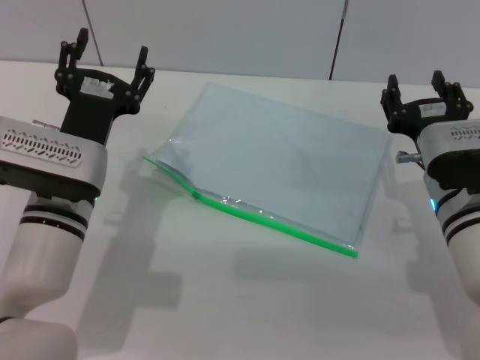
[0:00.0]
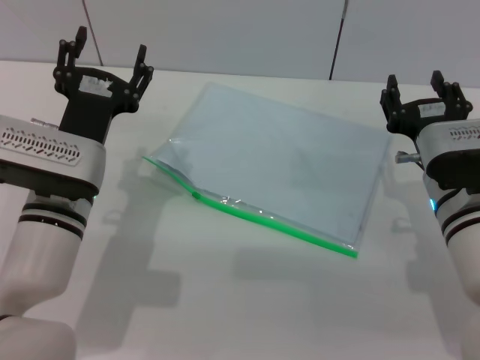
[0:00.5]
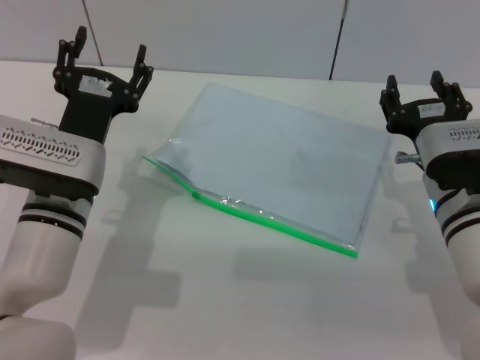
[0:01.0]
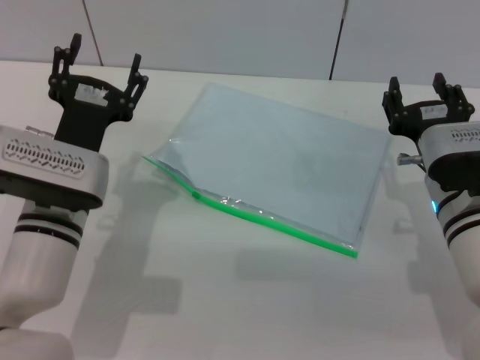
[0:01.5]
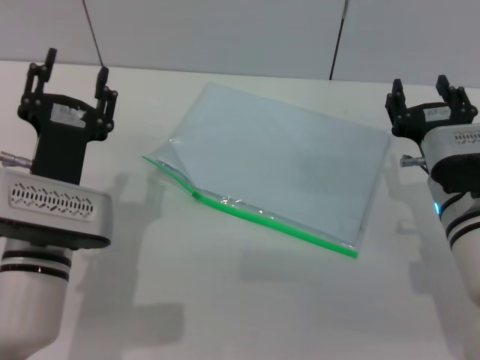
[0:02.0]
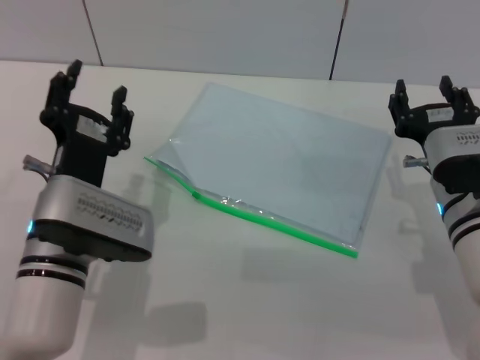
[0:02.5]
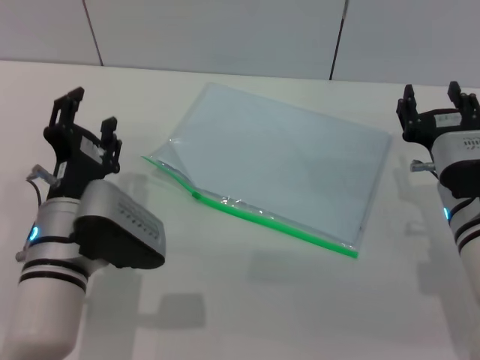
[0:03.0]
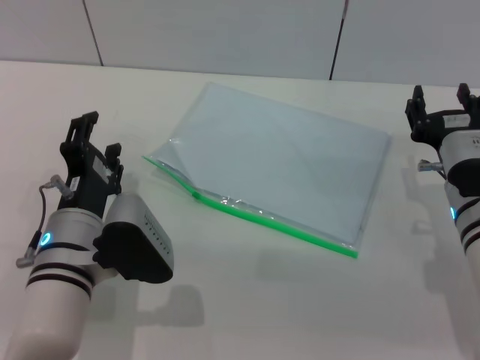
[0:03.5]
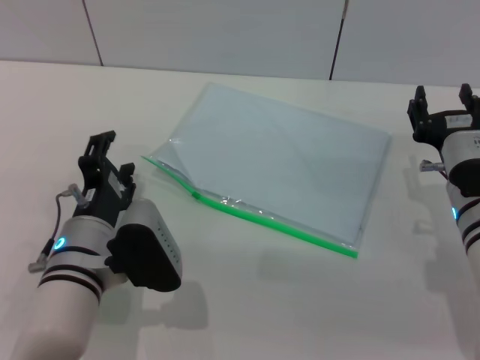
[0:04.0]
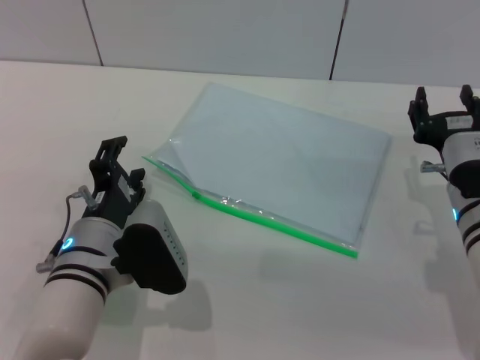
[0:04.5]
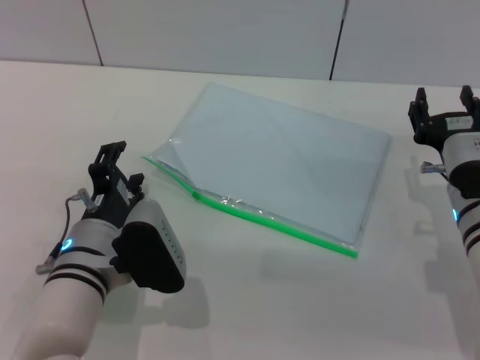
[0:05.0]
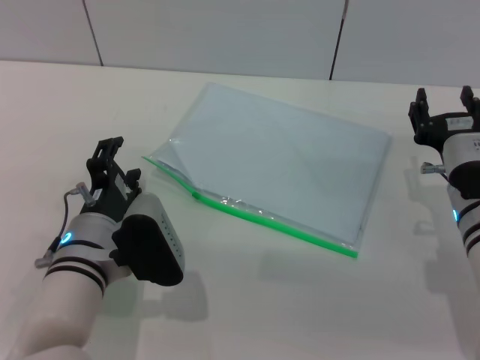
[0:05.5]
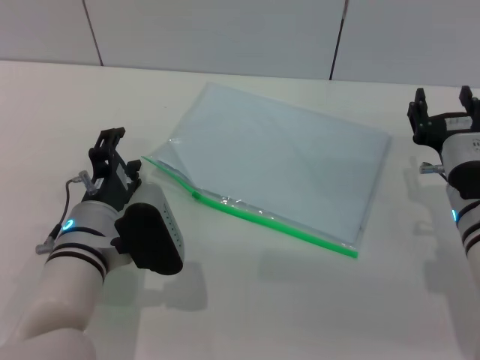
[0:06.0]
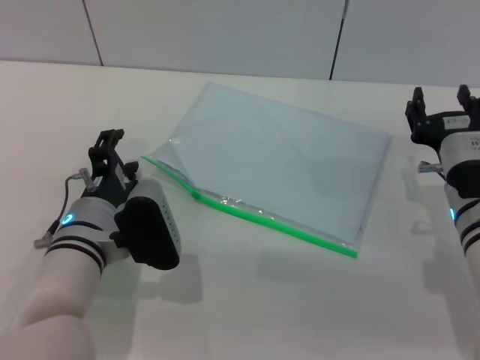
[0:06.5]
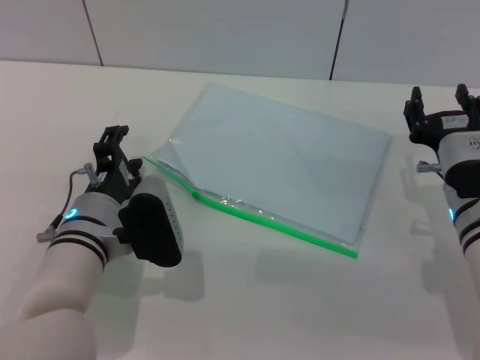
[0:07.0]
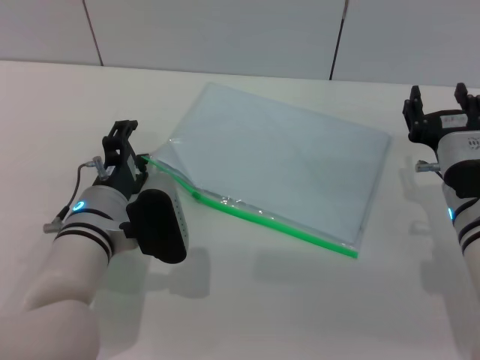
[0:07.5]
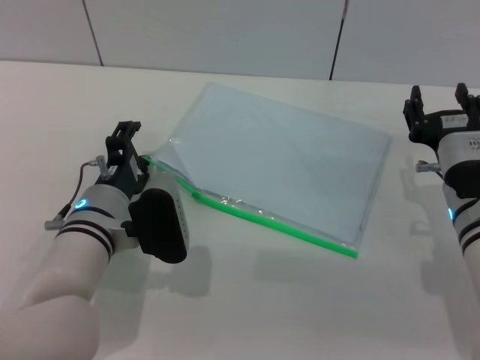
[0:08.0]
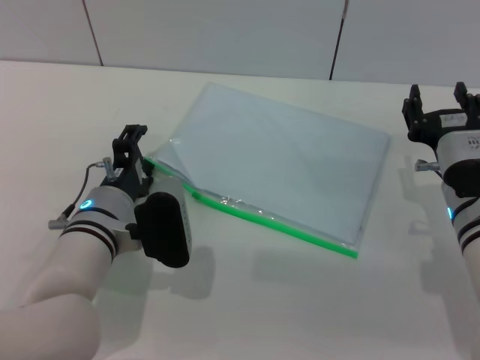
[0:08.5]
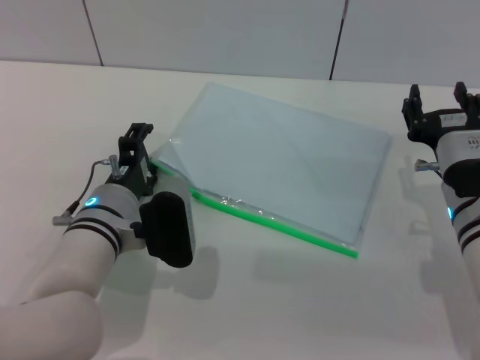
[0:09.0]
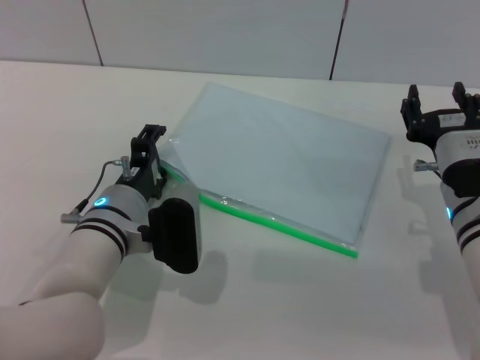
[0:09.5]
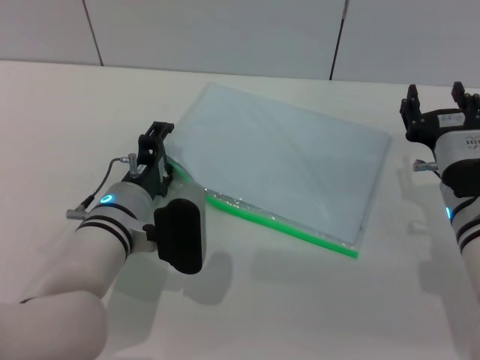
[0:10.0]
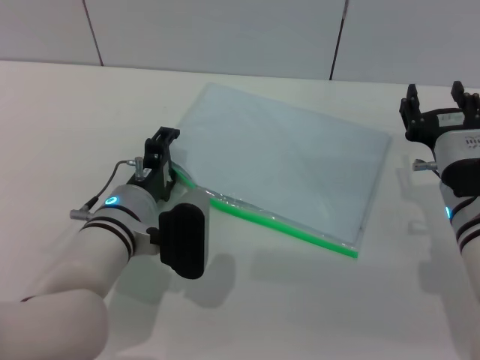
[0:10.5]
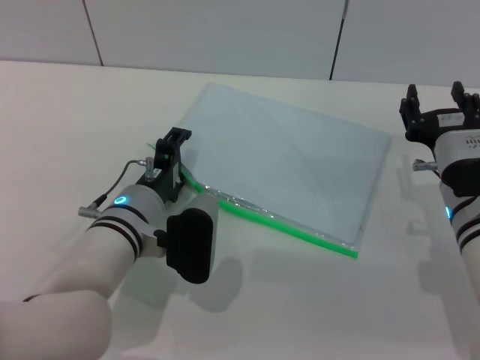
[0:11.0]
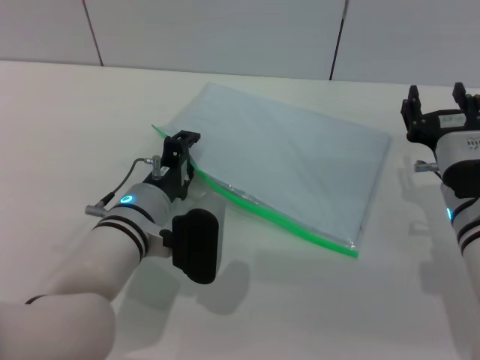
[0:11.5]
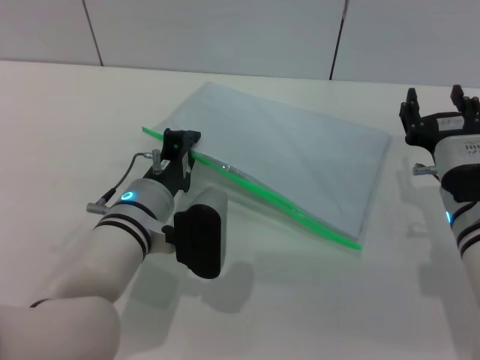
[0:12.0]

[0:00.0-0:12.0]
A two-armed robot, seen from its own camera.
0:00.0 to 0:02.0: The grippers make only small movements.
0:04.0 to 0:08.0: The grippers move only a little.
0:08.0 to 0:10.0: The grippers move only a little.
0:10.0 to 0:12.0: The left gripper closes its fingers.

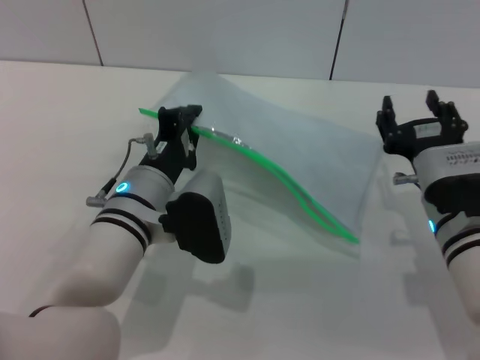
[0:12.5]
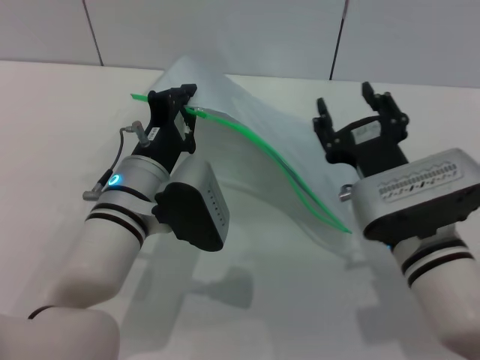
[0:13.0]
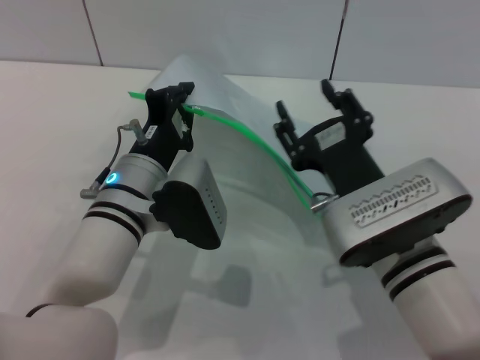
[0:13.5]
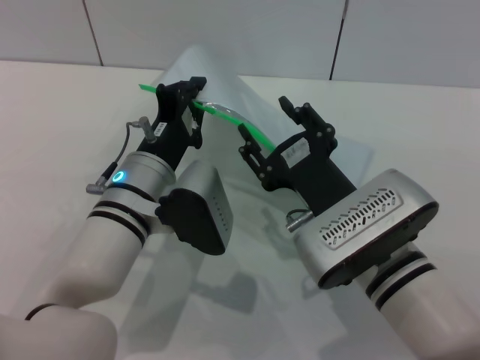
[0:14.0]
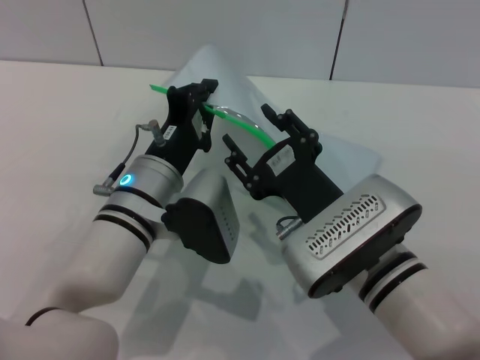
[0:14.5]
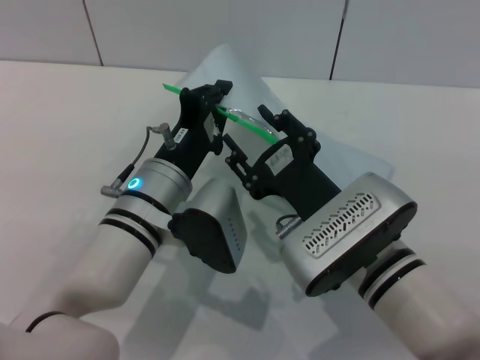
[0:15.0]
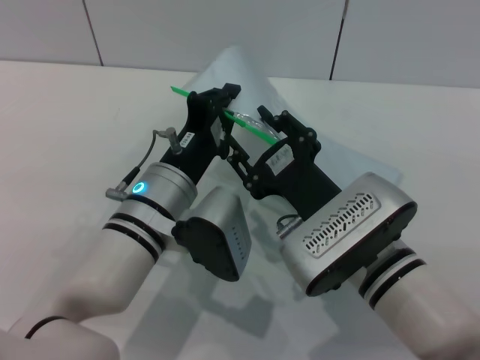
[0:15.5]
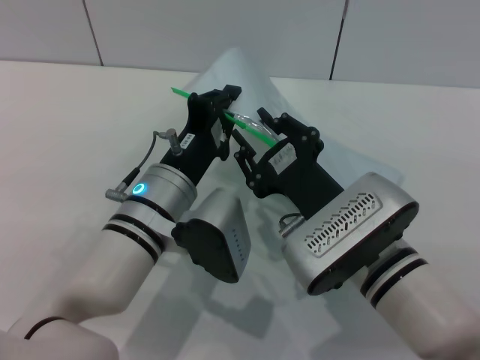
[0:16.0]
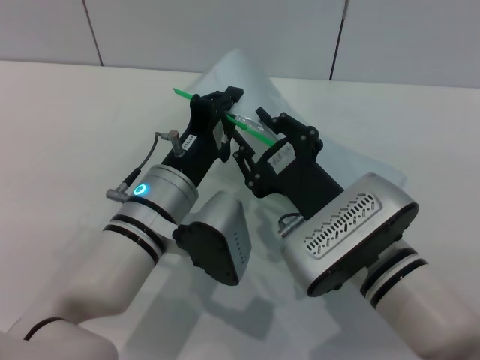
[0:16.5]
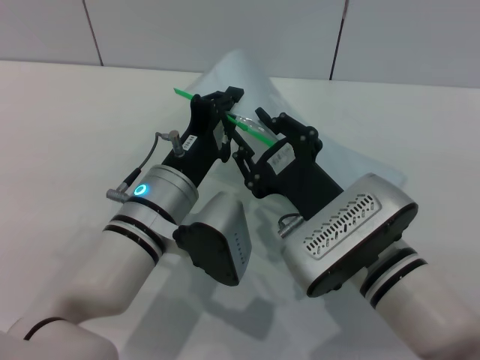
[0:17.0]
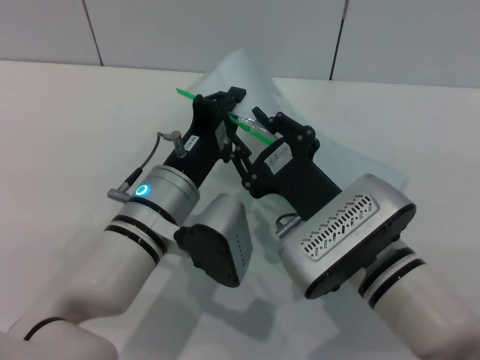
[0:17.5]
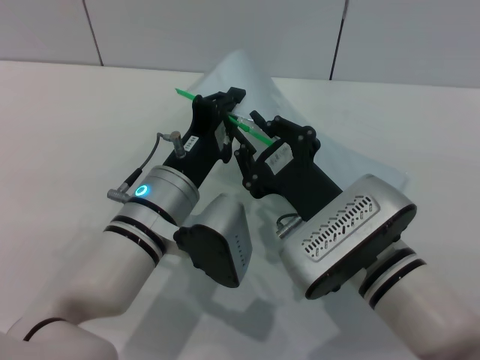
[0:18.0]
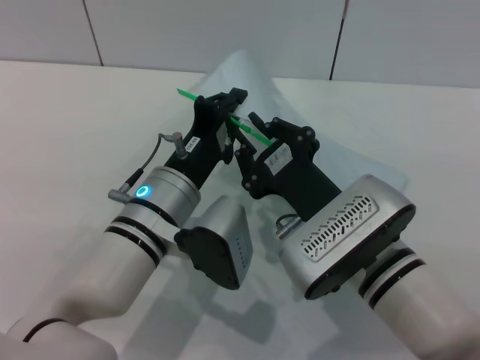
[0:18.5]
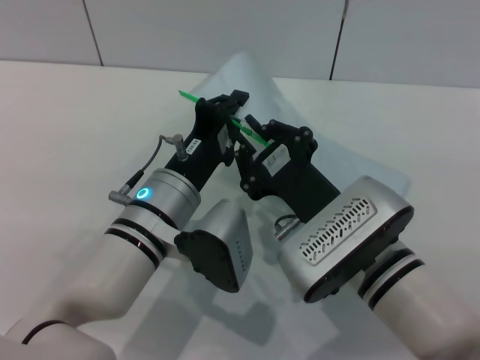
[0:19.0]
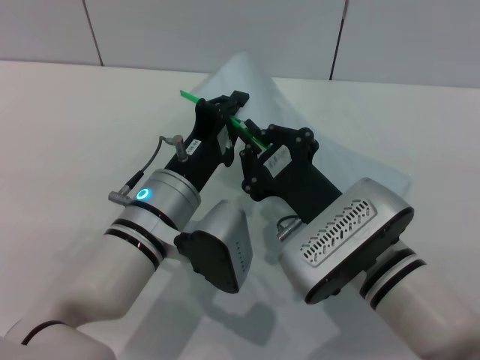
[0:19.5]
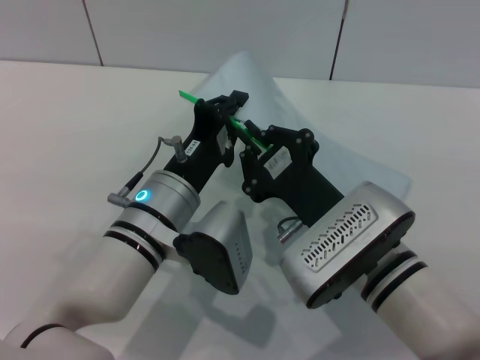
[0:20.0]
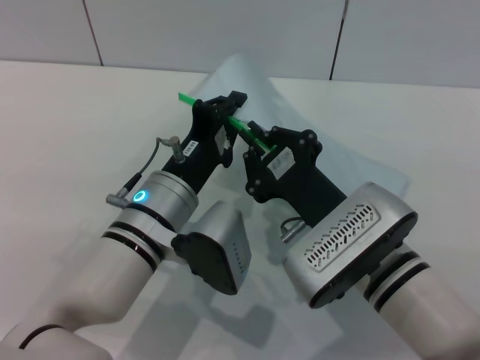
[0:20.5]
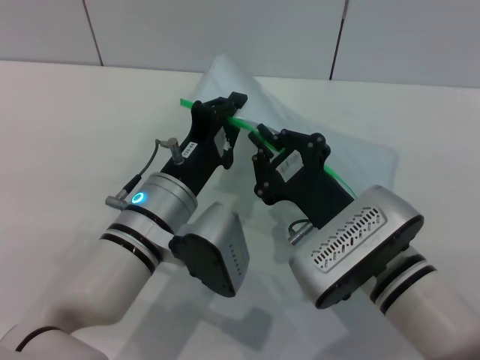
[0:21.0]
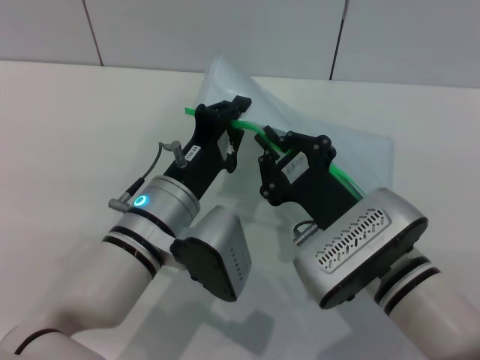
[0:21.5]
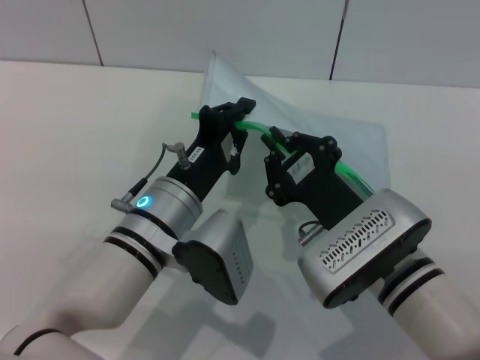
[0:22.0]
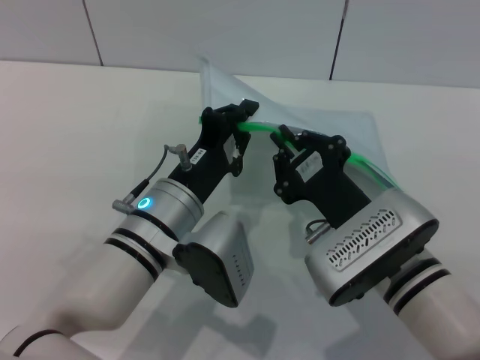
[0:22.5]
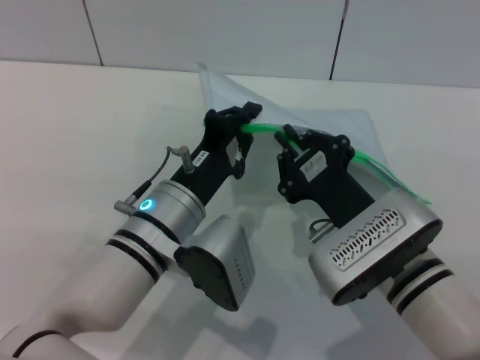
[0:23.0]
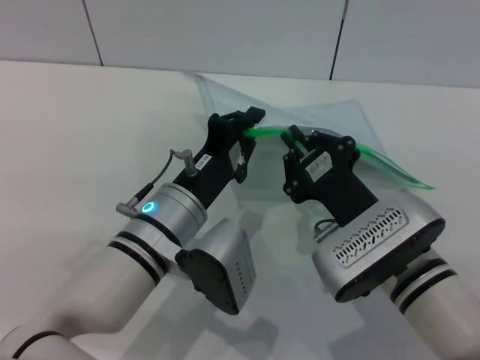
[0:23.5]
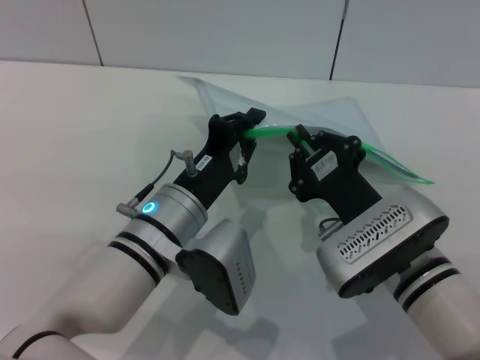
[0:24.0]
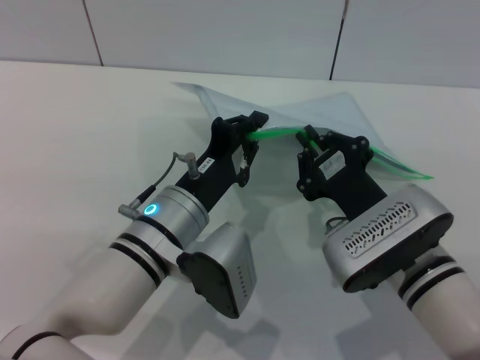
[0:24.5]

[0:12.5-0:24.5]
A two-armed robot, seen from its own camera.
0:12.5 to 0:14.5: The right gripper shifts about 10 cm to the left.
0:14.5 to 0:16.5: The right gripper closes up.
0:16.5 to 0:20.5: Neither gripper changes place.
0:20.5 to 0:24.5: There are only small adjustments of the grippers.

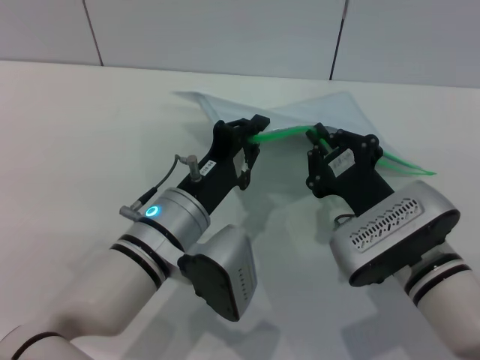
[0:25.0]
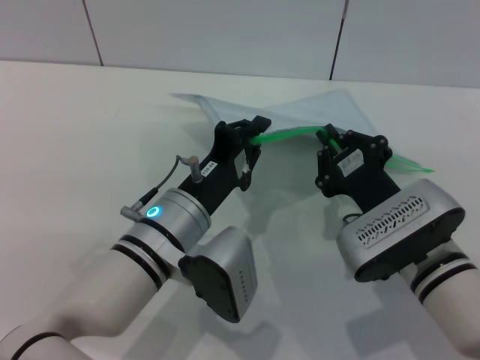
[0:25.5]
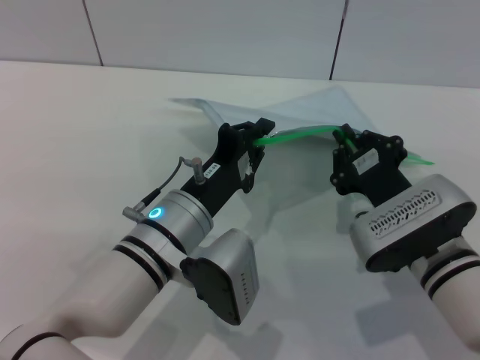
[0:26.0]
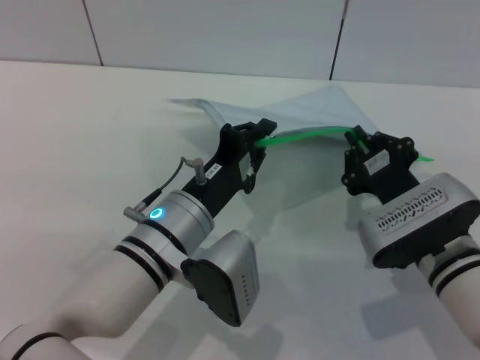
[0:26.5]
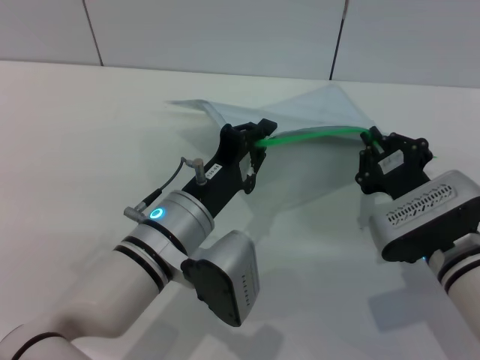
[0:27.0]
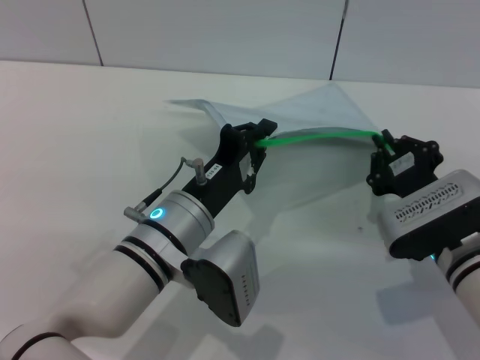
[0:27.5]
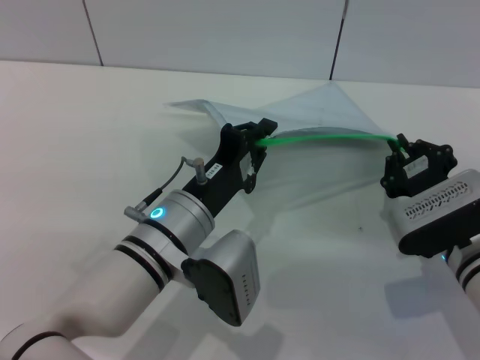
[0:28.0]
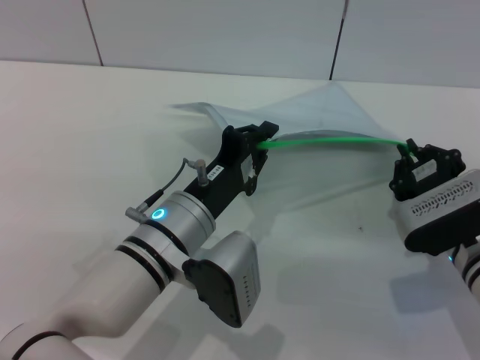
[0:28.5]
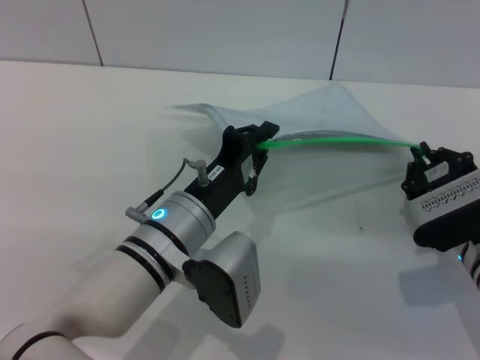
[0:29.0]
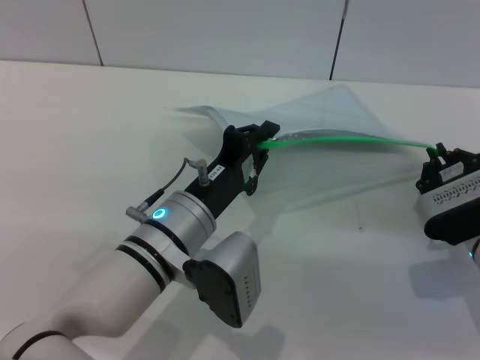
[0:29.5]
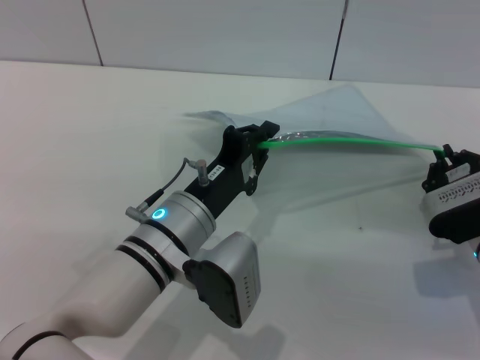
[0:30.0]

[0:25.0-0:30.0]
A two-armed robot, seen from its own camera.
0:25.0 to 0:27.5: The right gripper goes roughly 5 cm to the right.
0:27.5 to 0:30.0: The right gripper travels to the right by roughly 5 cm.
